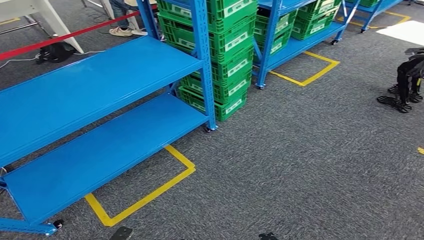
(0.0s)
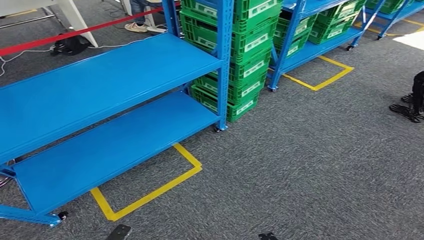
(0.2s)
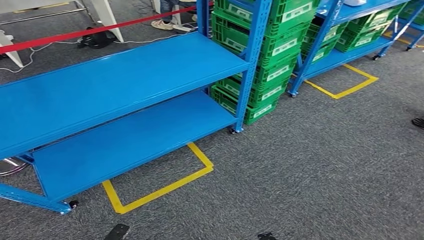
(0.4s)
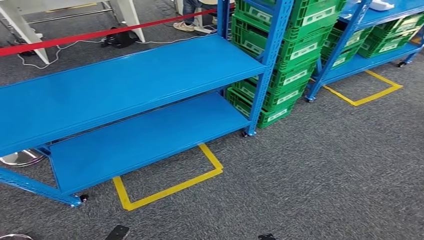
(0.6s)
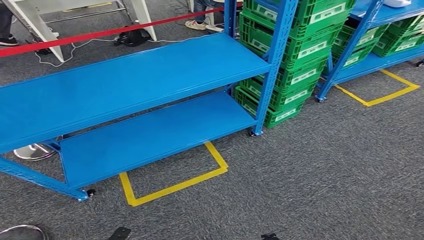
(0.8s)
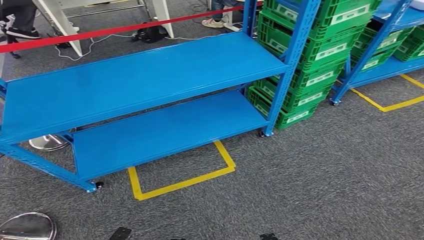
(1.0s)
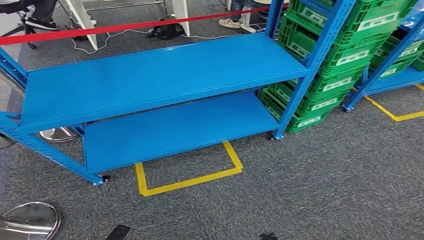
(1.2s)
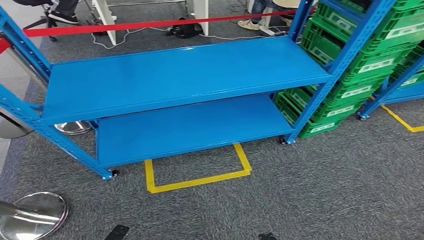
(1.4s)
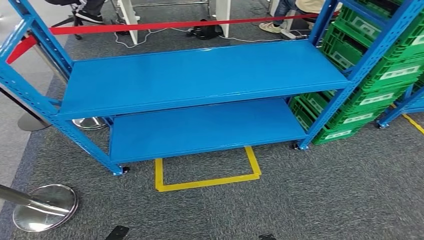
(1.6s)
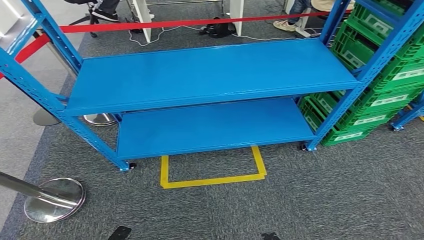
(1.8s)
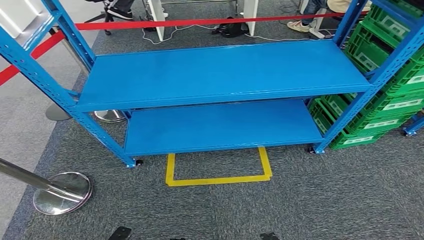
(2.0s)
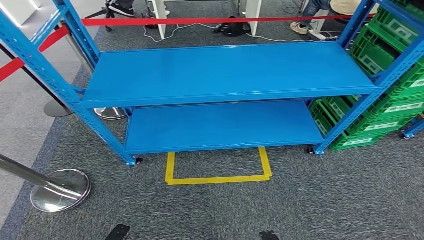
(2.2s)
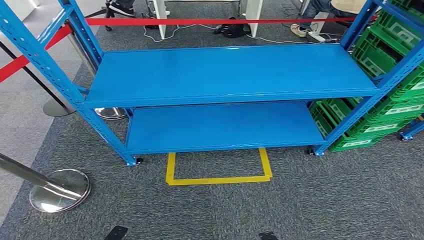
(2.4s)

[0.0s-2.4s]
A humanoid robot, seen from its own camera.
Step, 0.0s to 2.4s: Return to the initial position at the workbench.
